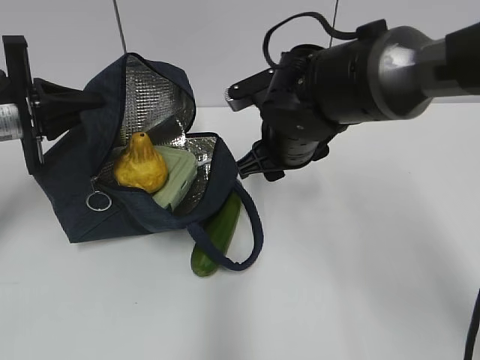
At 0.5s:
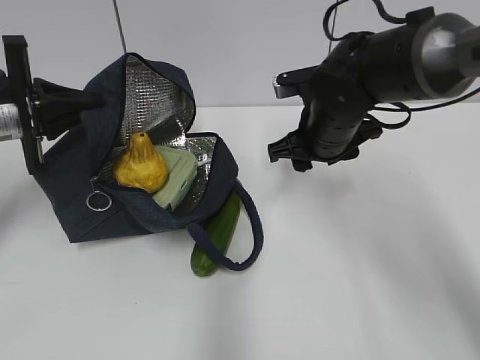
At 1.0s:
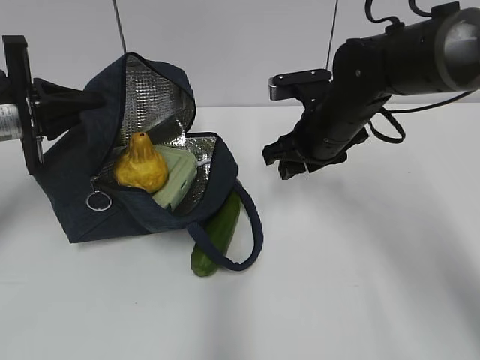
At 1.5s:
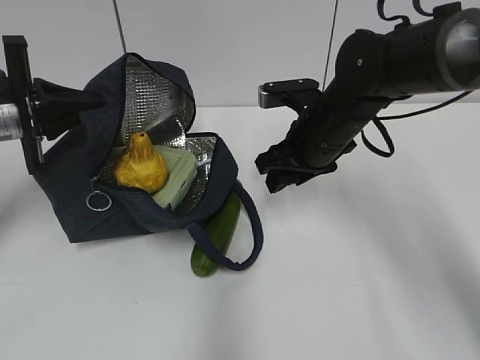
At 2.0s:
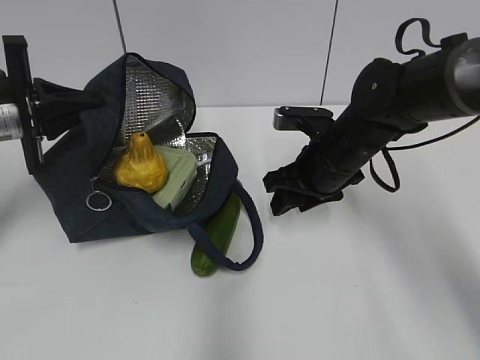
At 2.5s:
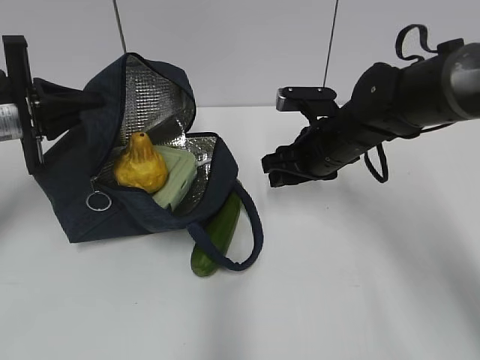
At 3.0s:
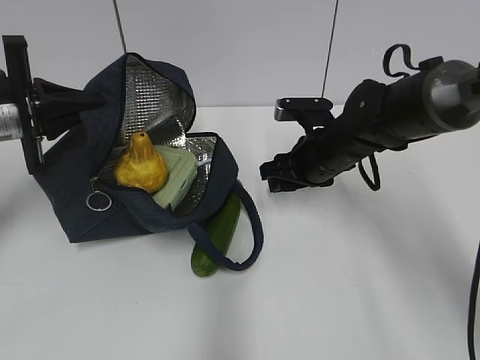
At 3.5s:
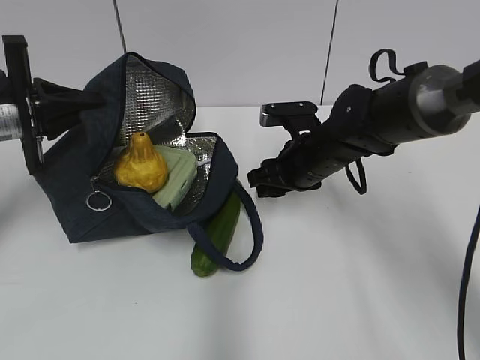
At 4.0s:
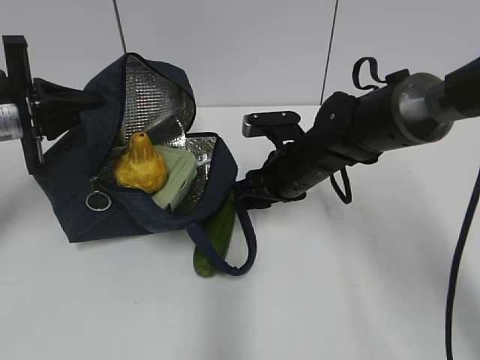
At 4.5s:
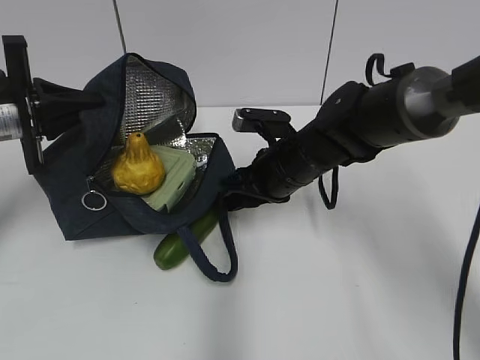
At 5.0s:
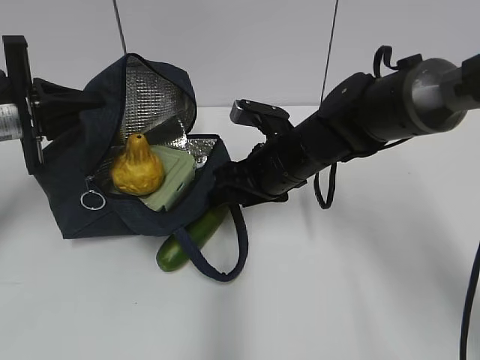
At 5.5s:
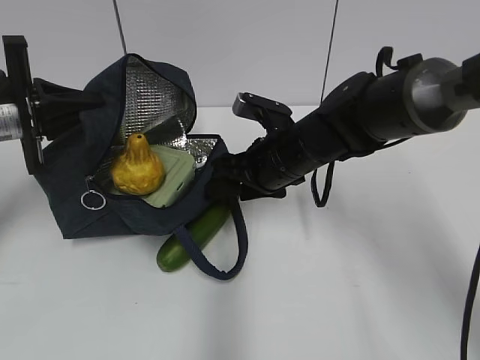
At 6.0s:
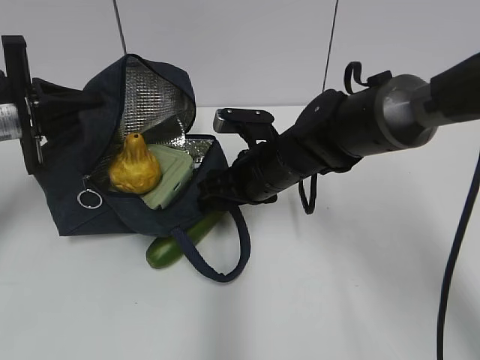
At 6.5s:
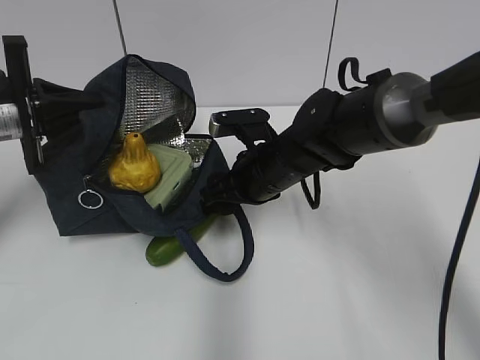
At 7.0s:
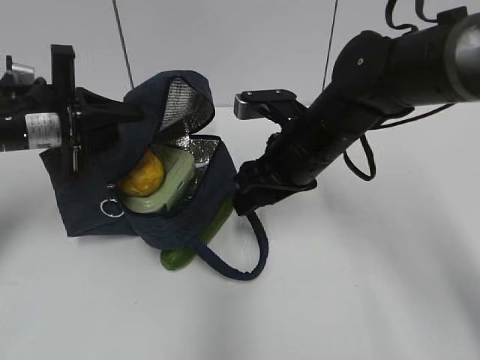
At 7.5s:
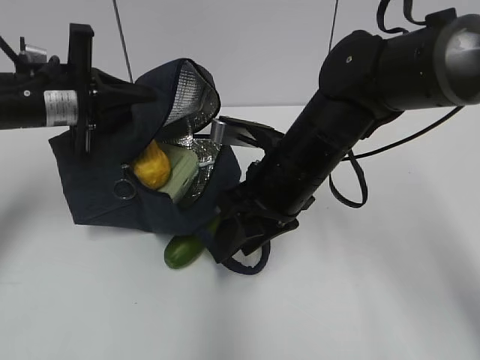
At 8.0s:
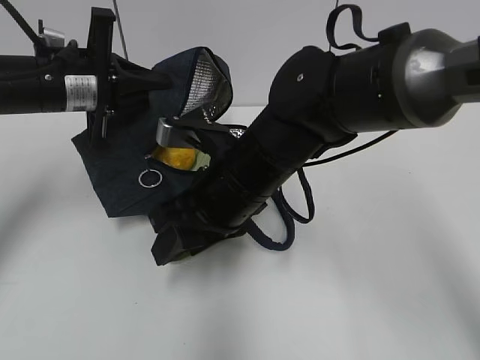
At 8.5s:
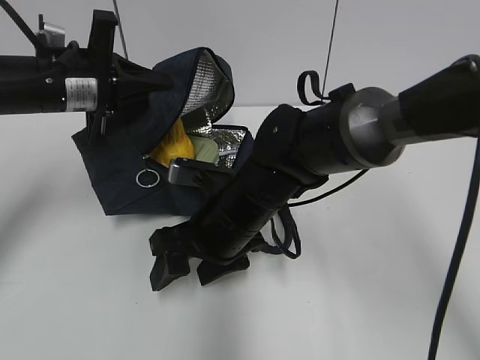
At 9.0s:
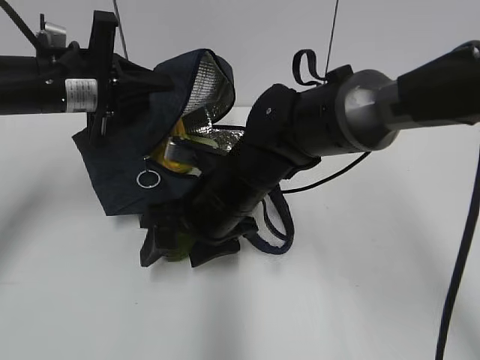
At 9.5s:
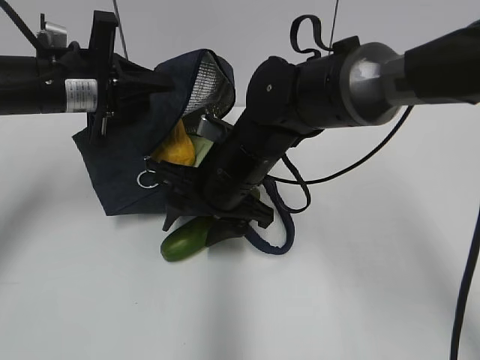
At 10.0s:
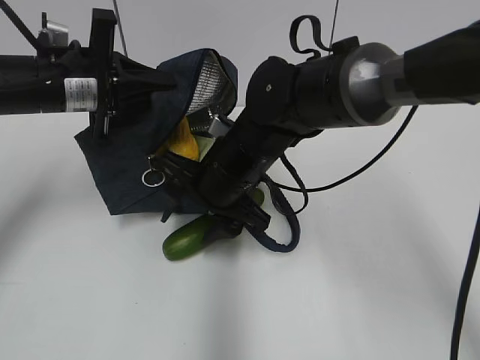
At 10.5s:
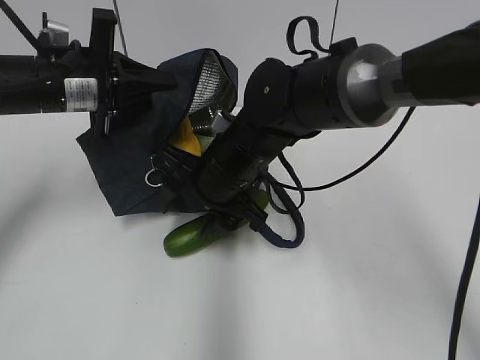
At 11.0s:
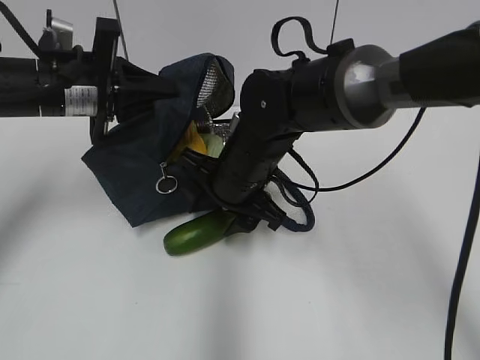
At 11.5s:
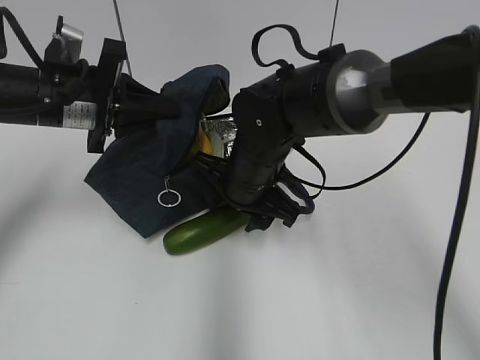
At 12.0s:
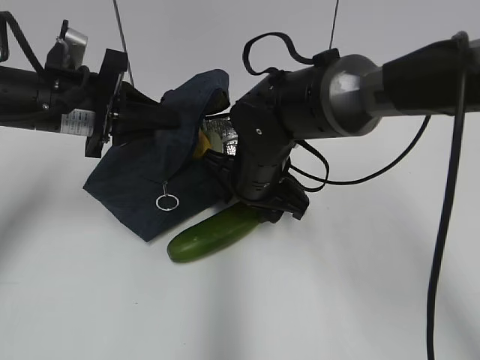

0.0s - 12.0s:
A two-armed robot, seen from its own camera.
0.0s - 2.0s: The right gripper shifts roughly 5 cm to the right.
2.0s - 4.0s: The grippers make only small movements.
4.0s - 6.0s: There are only small adjustments of the grippers.
6.0s - 8.0s: The right gripper goes roughly 10 cm backward and upward, while the left gripper moves to the right, approximately 10 cm.
8.0s - 10.0s: The right gripper ends up approximately 5 cm from where it was.

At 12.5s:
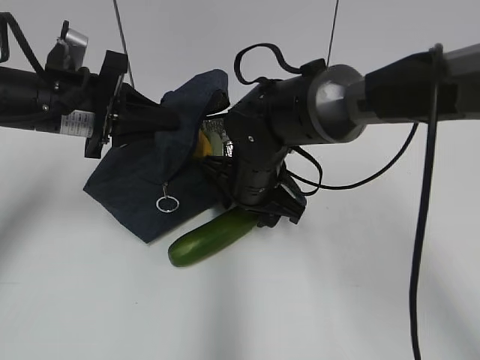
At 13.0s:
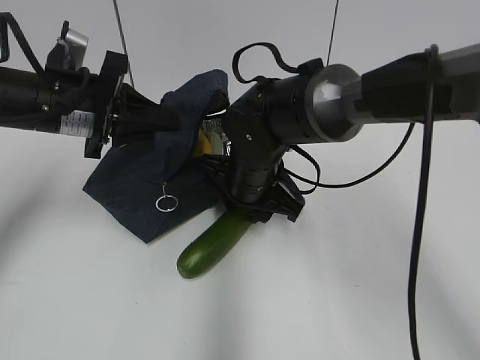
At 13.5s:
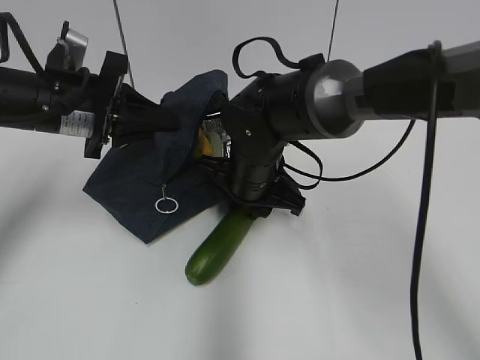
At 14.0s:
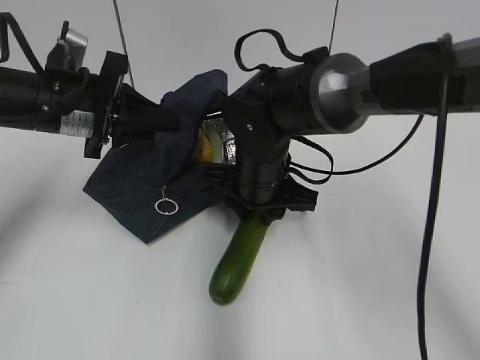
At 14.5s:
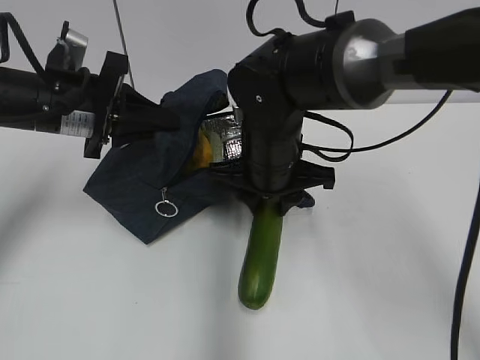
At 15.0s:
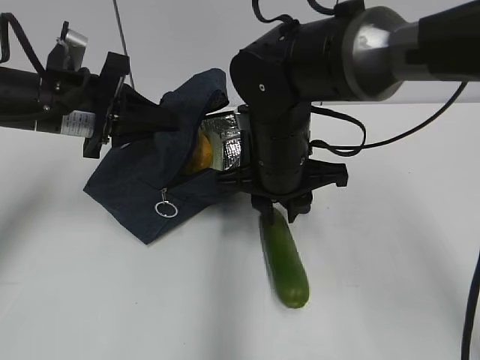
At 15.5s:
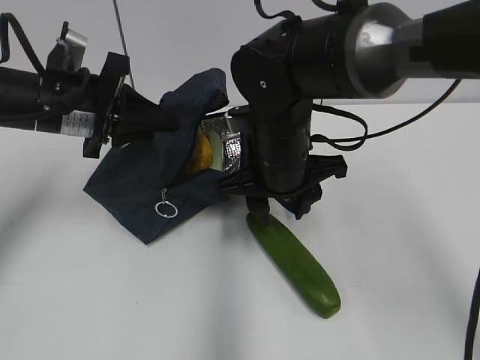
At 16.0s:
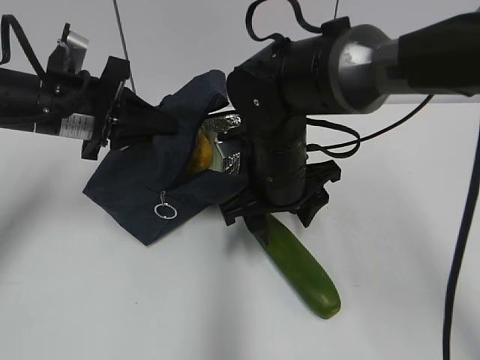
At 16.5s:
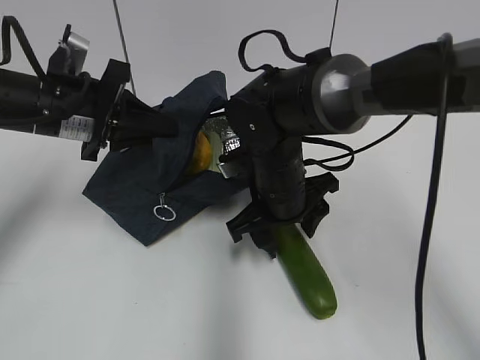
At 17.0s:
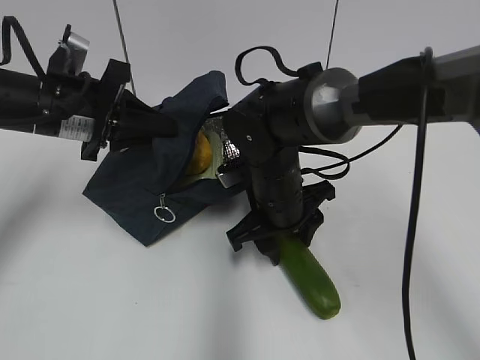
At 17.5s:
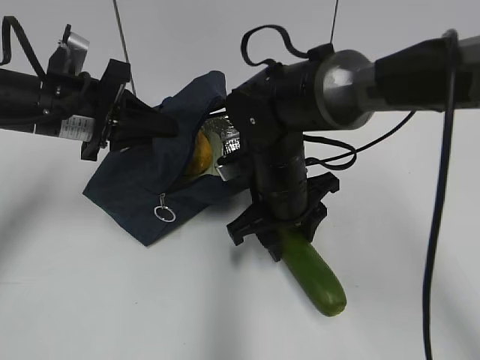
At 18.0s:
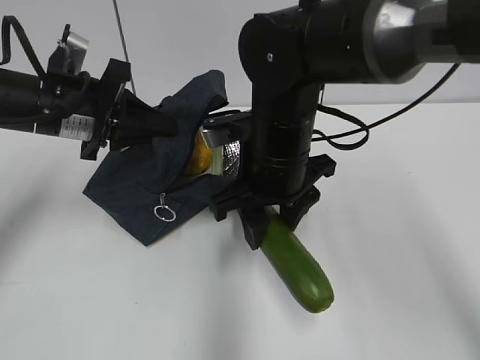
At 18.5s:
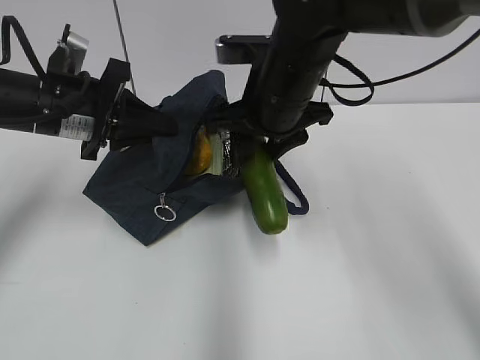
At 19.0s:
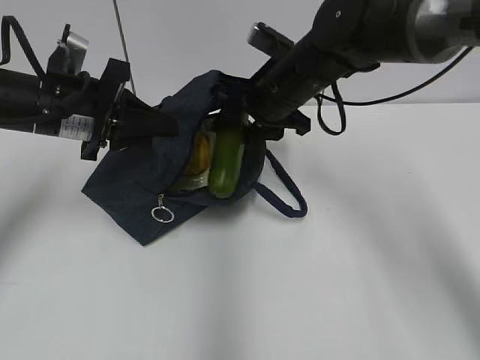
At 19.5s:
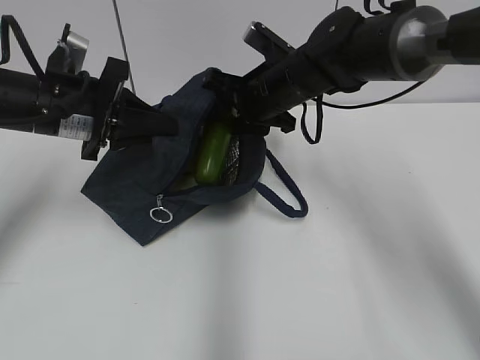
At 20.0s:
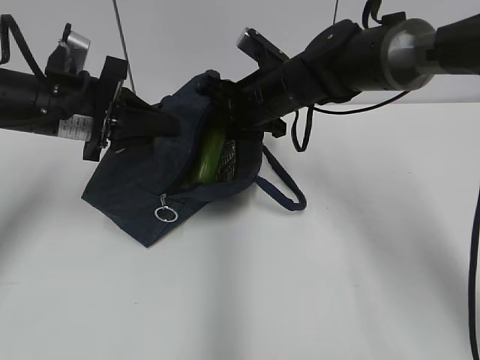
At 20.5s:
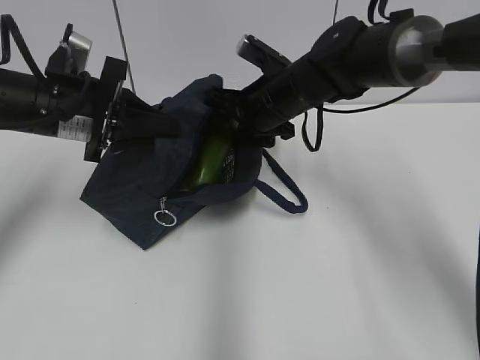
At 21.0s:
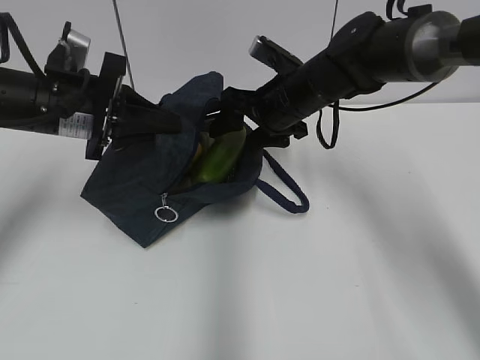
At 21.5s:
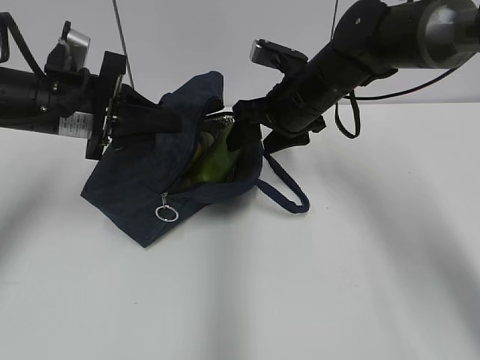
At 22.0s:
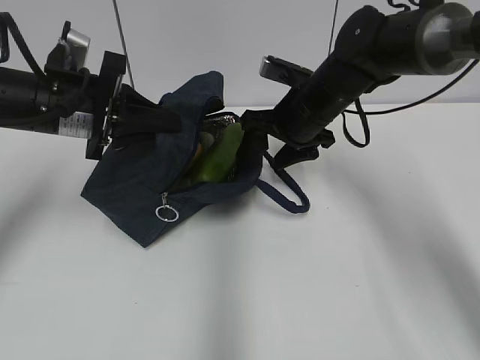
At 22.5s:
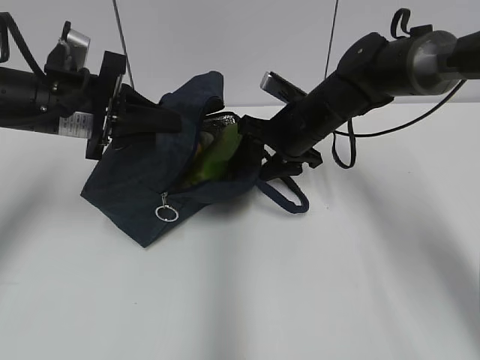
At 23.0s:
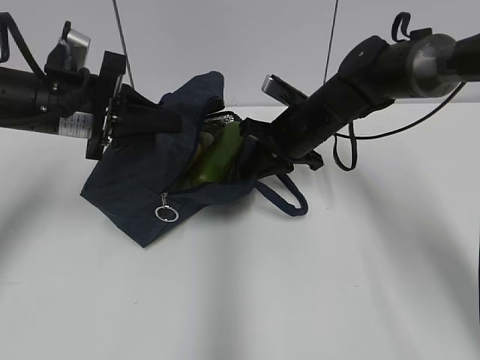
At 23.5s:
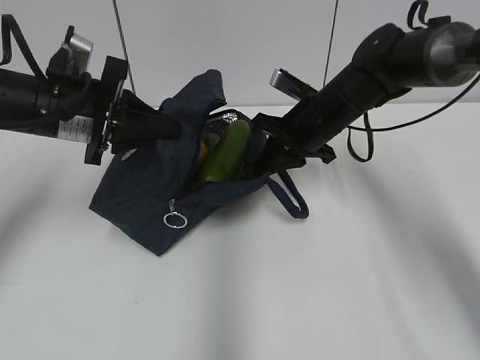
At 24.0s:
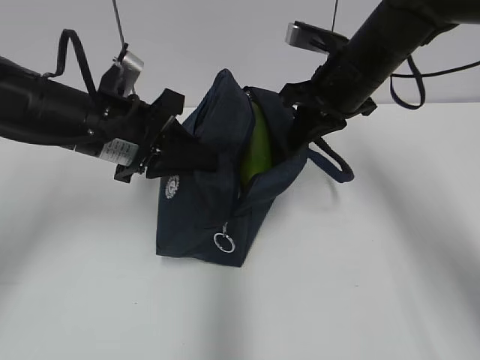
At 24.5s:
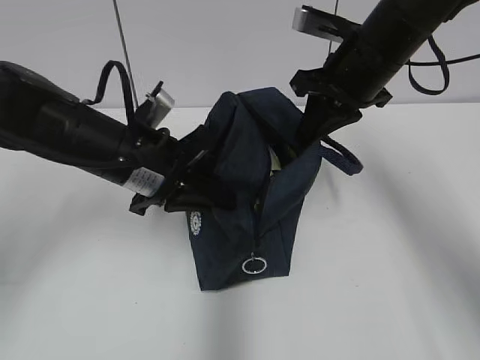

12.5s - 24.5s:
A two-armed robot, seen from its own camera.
12.5s - 14.5s: The right gripper closes up.
14.5s - 16.5s: The right gripper opens its fingers.
16.5s - 18.5s: The right gripper travels upward by roughly 10 cm.
18.5s - 20.5s: The right gripper goes about 10 cm forward and downward.
20.5s - 22.5s: The right gripper moves about 5 cm.
22.5s - 24.5s: The left gripper heads to the right, covering roughly 5 cm. Meanwhile the right gripper is displaced upward and backward by approximately 10 cm, and closes its fingers.

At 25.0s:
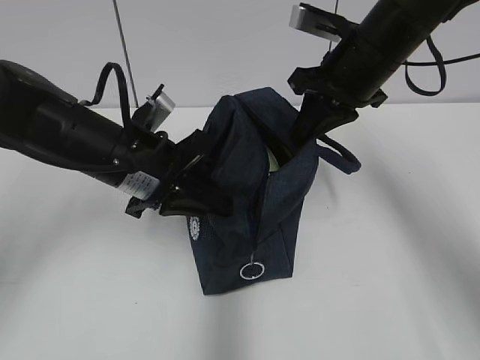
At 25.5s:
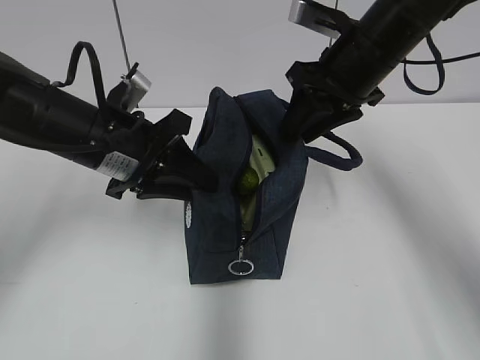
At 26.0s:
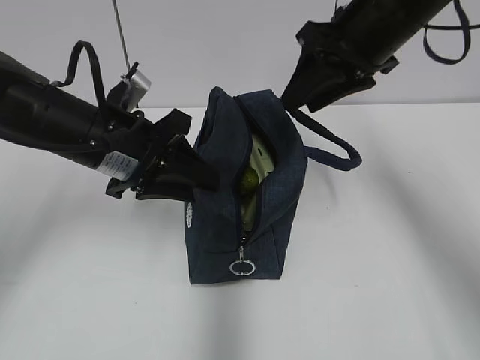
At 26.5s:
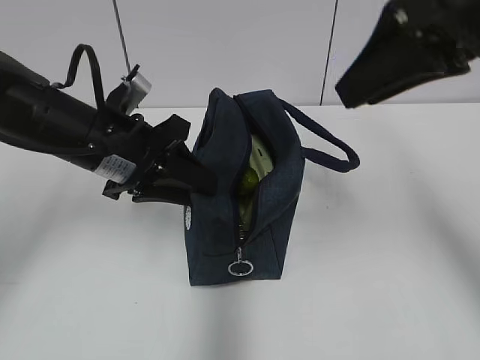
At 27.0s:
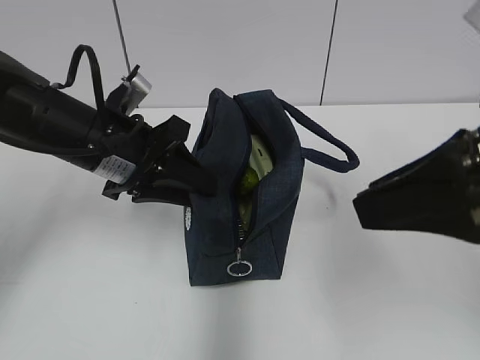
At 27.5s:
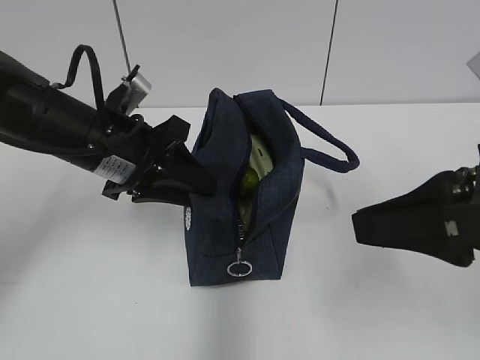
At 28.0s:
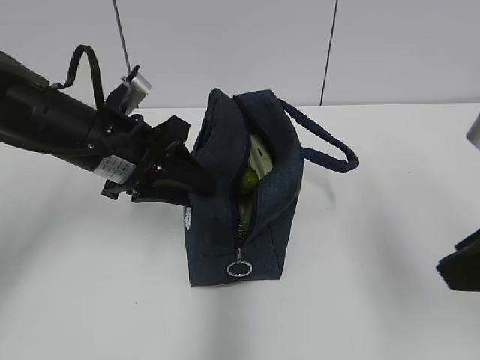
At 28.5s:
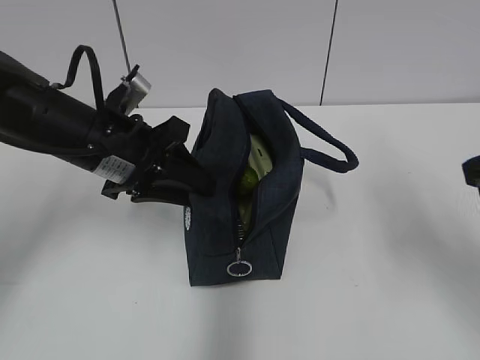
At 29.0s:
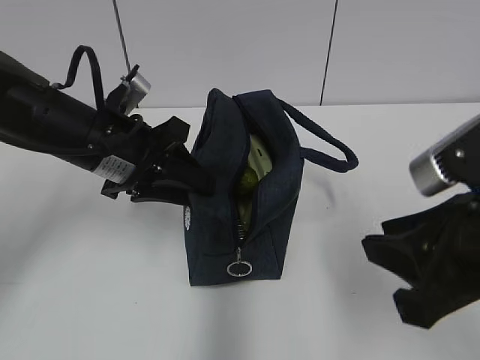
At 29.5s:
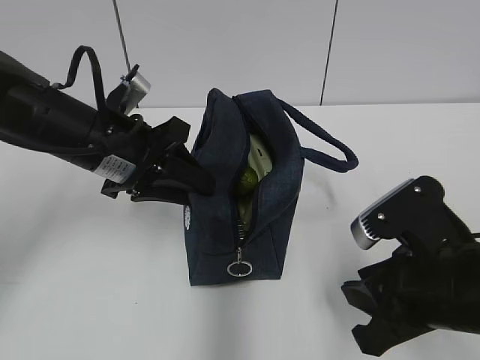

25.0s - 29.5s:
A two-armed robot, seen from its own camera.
25.0s - 27.0s: The left gripper opens; the right gripper moves backward, approximately 20 cm, and opens its fingers.
27.0s - 29.5s: The right gripper travels downward by roughly 15 cm.
